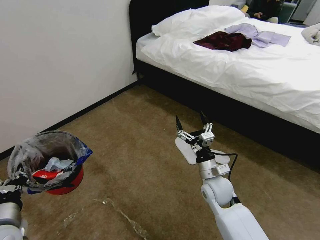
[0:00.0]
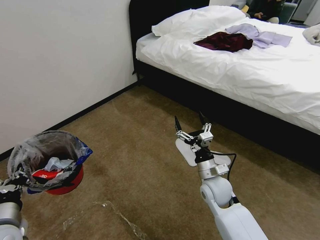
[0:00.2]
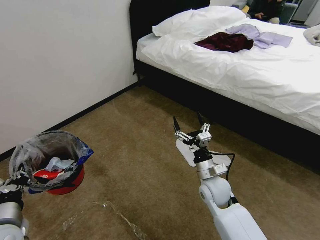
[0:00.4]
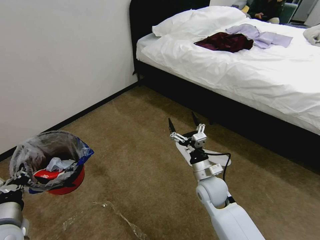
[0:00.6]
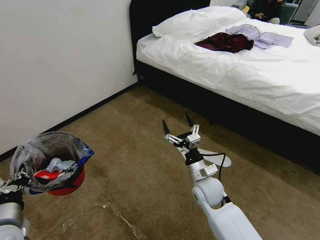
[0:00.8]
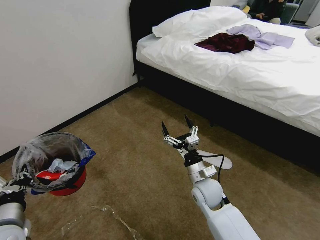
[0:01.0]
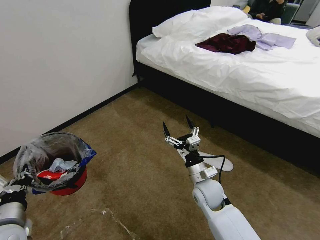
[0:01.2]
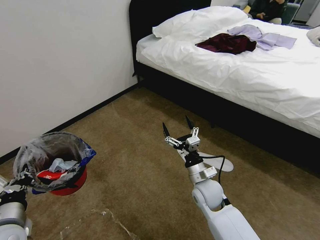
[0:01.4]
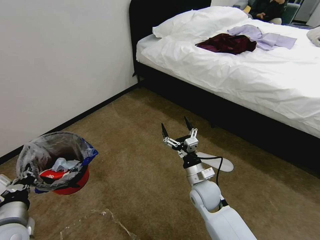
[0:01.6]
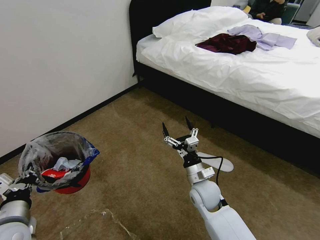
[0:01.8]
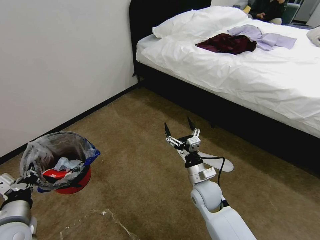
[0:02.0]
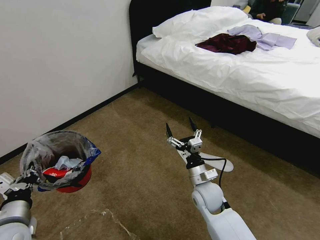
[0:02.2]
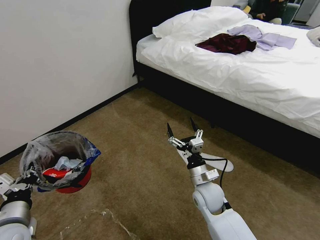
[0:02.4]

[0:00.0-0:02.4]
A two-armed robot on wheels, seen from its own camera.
Task of the whole recording: Pick up the trash bin and place the garbage on the floor into it.
0:00.0 to 0:01.2: The grippers make only small movements.
0:01.2 to 0:02.4: The two grippers keep their place.
